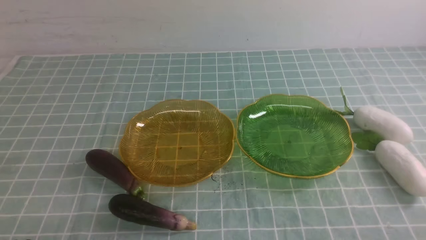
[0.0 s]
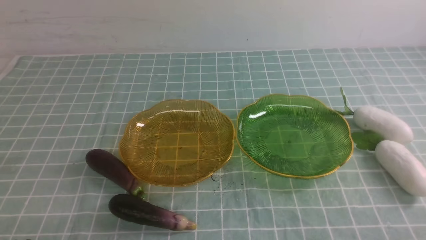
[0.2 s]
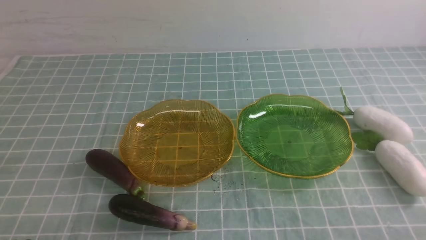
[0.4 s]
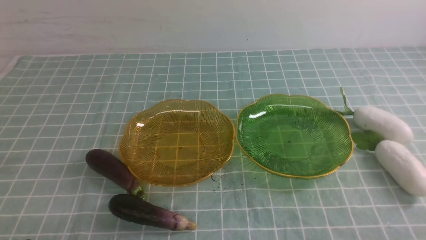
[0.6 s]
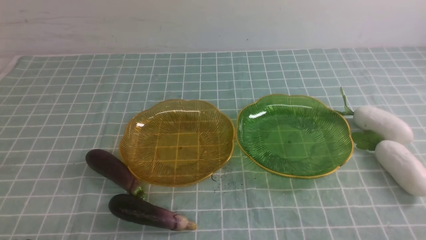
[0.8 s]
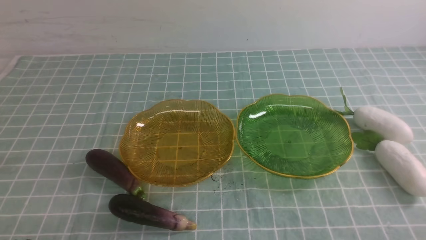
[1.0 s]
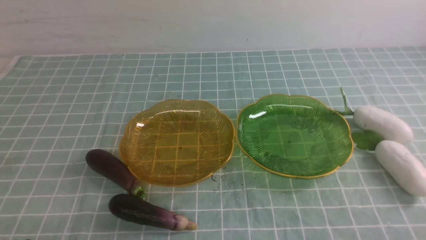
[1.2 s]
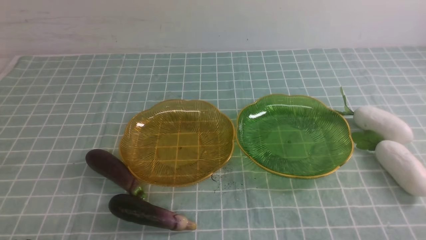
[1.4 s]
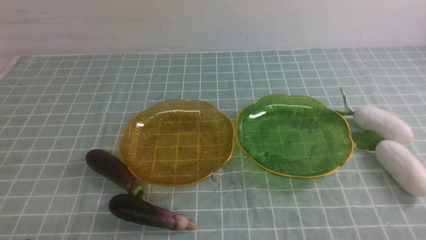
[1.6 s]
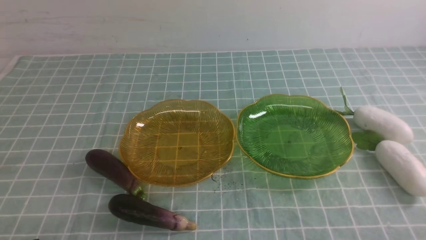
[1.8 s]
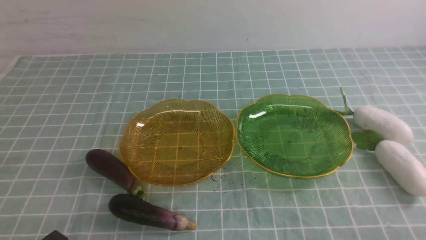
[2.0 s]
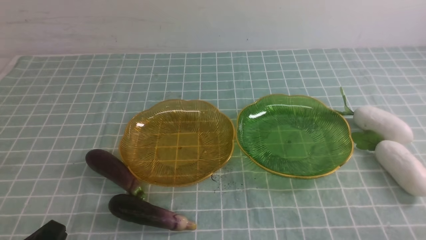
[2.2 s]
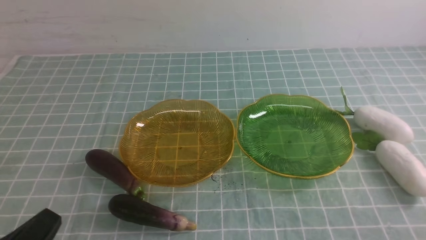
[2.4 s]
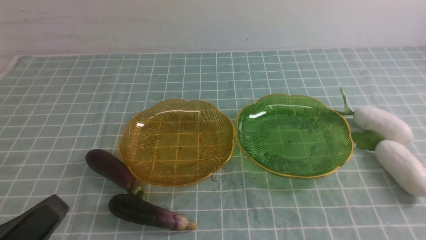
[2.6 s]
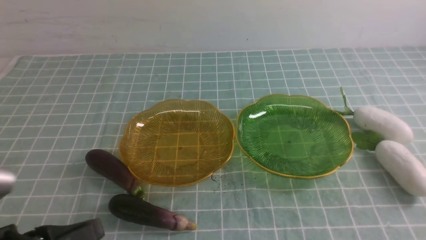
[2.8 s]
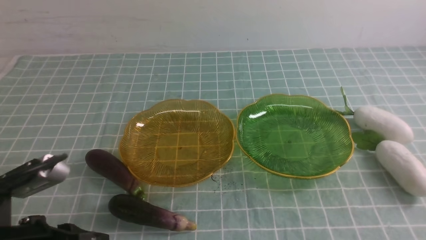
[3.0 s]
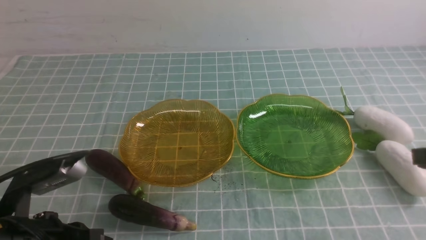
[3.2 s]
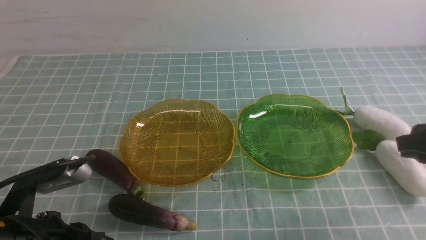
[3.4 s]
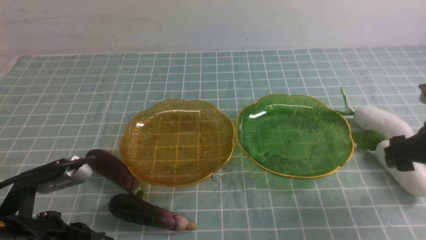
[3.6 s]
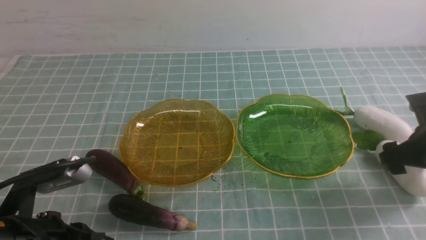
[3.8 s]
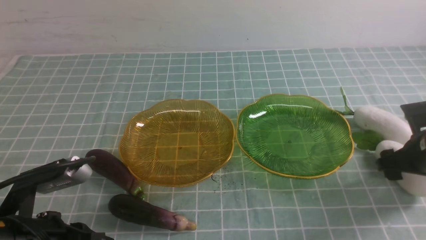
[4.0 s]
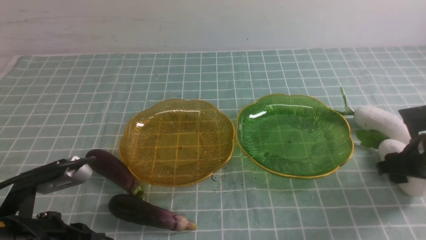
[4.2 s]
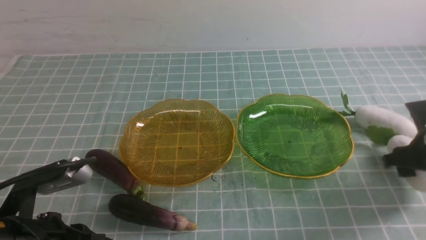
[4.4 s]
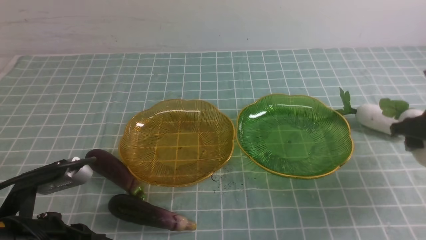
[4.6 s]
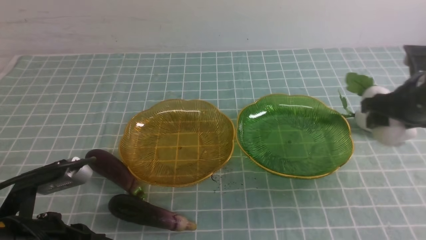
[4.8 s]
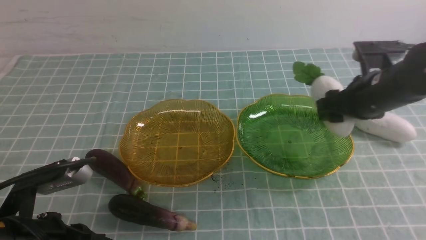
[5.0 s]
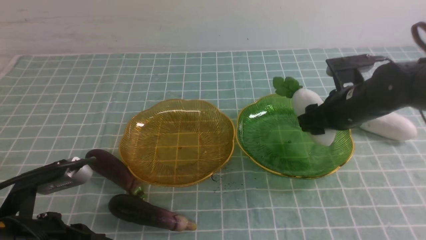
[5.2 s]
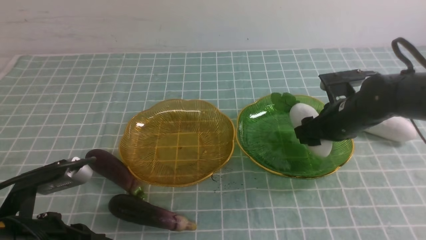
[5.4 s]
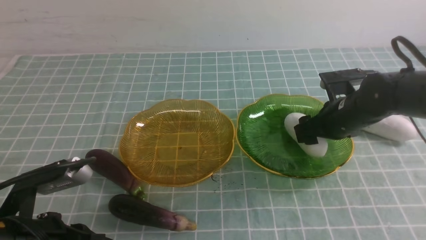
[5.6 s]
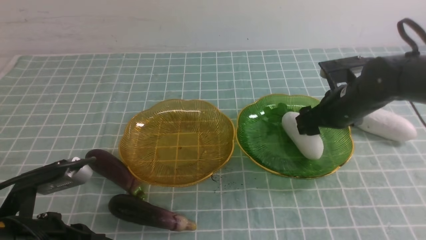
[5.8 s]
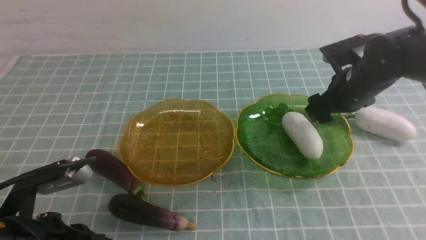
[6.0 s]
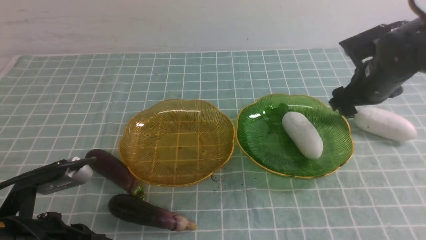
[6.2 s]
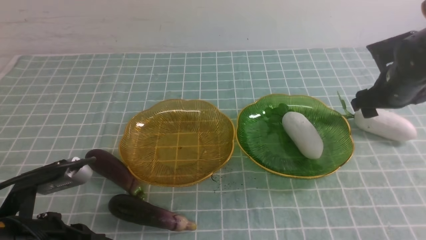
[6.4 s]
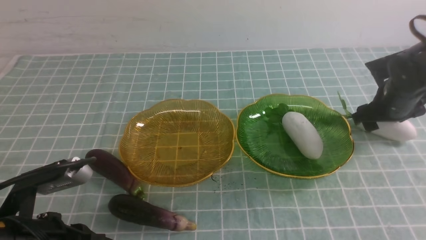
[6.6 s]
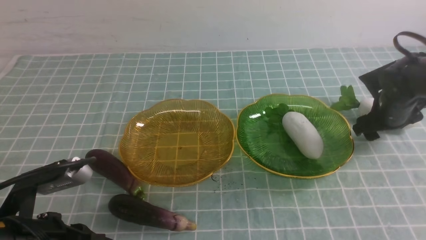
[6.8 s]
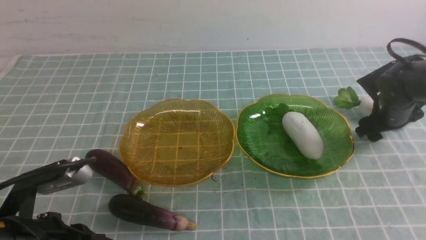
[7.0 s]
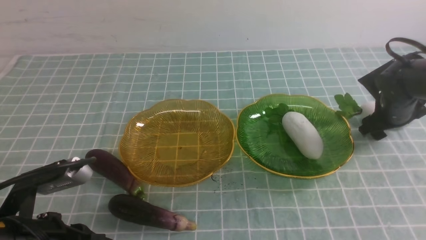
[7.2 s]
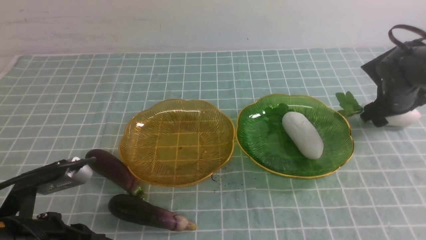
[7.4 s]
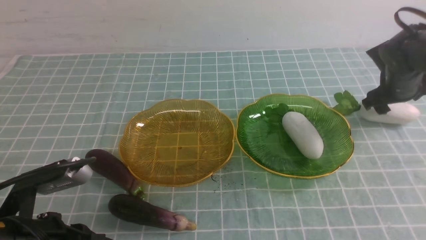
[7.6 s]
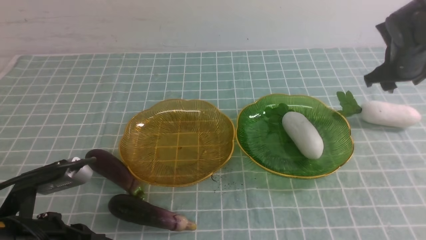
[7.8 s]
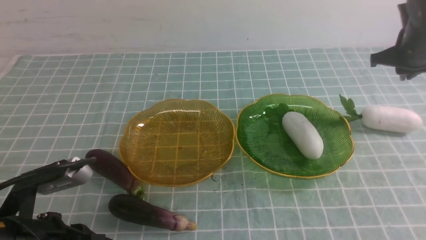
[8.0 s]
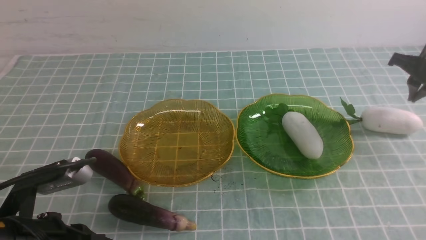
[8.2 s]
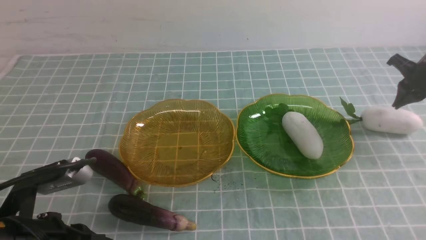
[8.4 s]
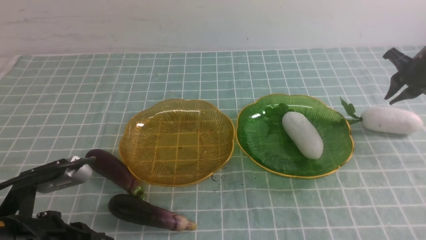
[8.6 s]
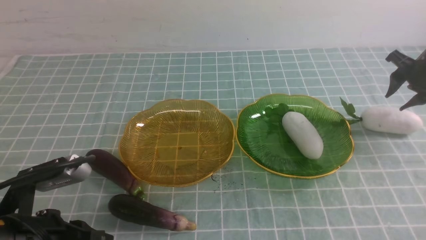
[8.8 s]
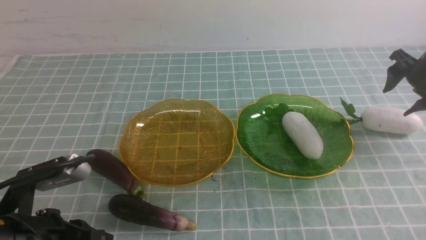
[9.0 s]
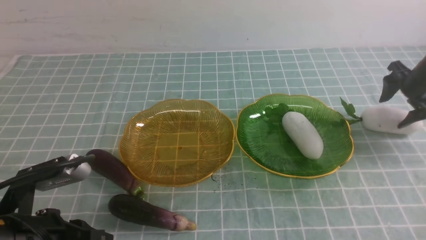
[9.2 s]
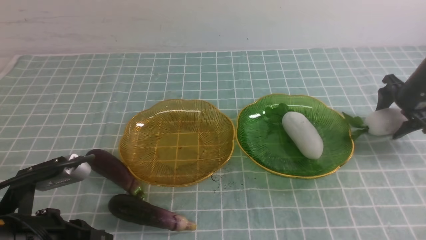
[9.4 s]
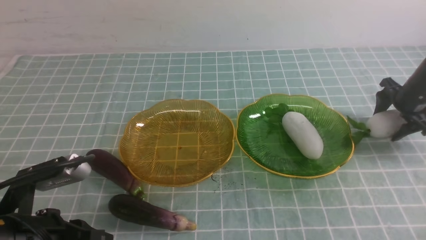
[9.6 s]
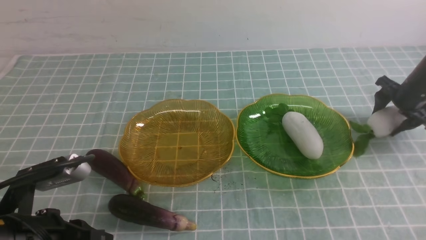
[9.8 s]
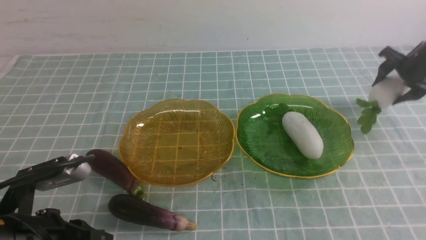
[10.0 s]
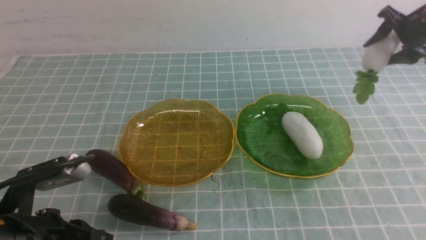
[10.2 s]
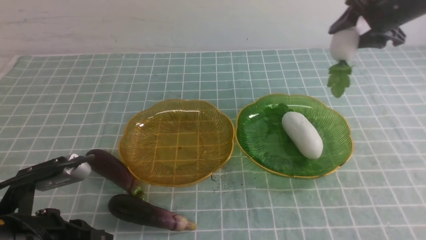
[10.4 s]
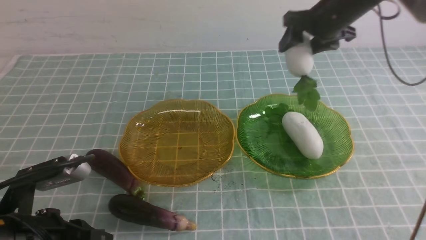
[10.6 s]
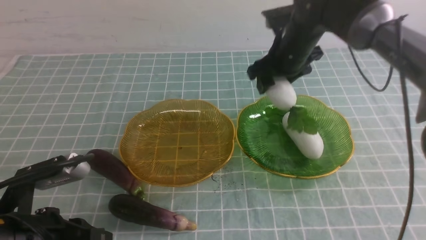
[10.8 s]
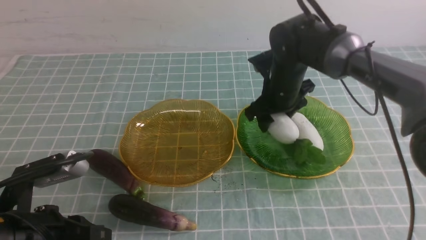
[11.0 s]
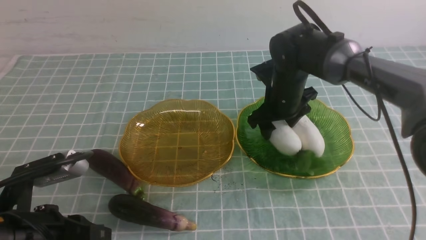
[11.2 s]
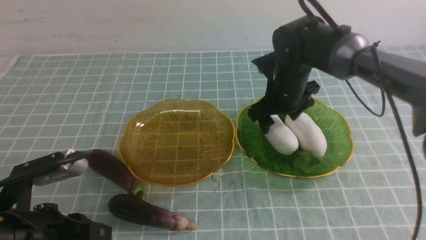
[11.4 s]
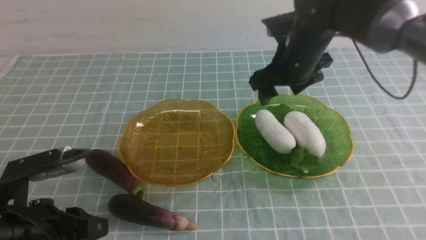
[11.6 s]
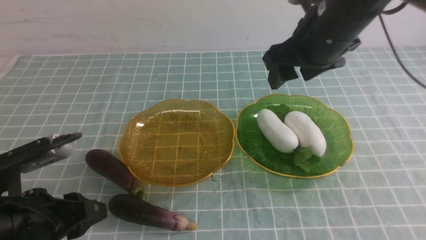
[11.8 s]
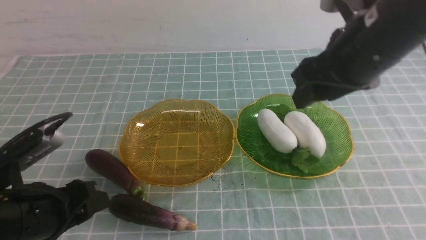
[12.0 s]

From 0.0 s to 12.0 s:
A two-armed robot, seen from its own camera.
Step, from 0.0 s to 5.8 s: use the right arm to grab a radish and put it into the right plate.
Step, from 6.0 s to 11.4 s: use the right arm to grab a radish and put it into the right plate.
From 1.6 s to 3.0 s: The left gripper goes roughly 10 cm upward and forward.
From 3.0 s to 4.4 s: The right gripper goes roughly 20 cm forward and downward, and opens.
From 4.4 s to 6.0 s: The right gripper goes approximately 15 cm to the left and forward.
From 6.0 s to 7.6 s: The right gripper is displaced to the right and forward by some 10 cm.
From 7.6 s to 9.0 s: The right gripper goes roughly 5 cm to the right, and closes, then reopens.
From 9.0 s to 10.4 s: The right gripper shifts approximately 15 cm to the left and upward.
From 10.4 s to 12.0 s: The right gripper goes roughly 25 cm backward and to the left, while the left gripper opens up.

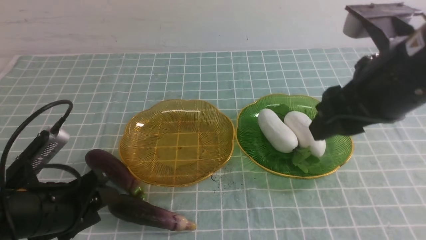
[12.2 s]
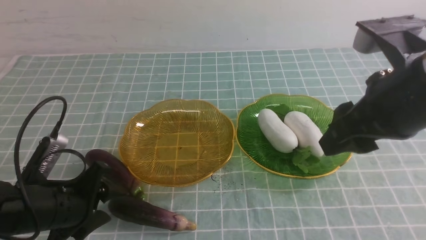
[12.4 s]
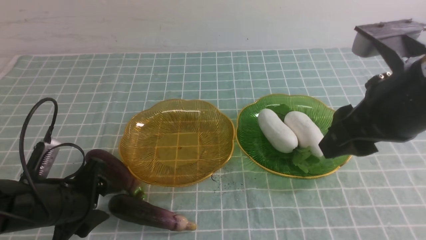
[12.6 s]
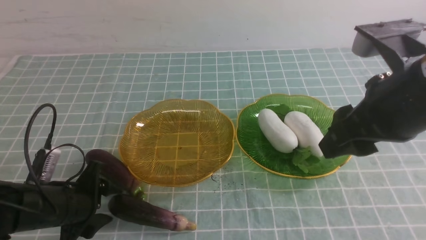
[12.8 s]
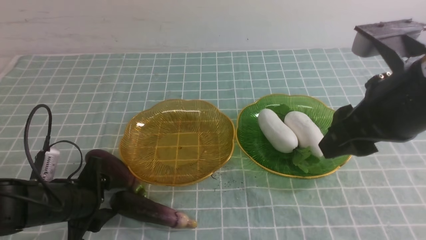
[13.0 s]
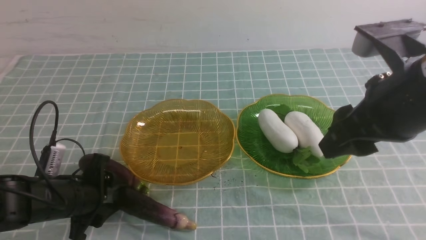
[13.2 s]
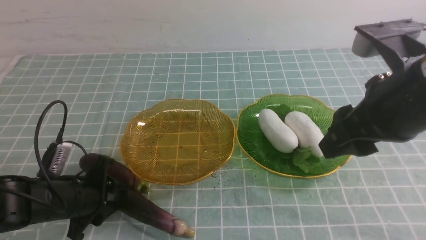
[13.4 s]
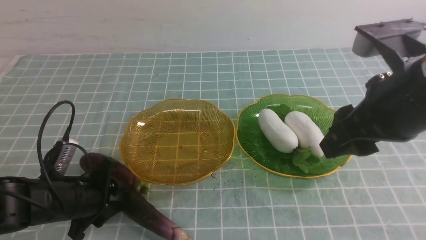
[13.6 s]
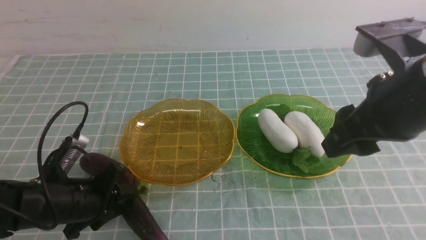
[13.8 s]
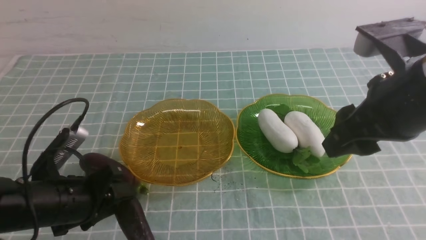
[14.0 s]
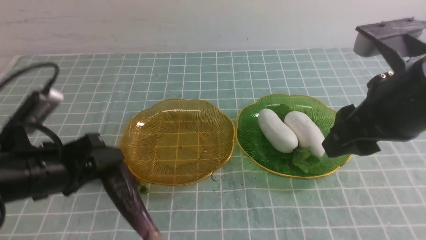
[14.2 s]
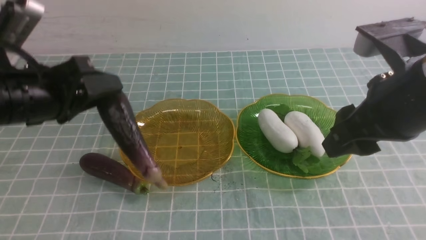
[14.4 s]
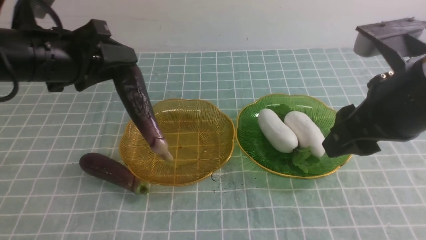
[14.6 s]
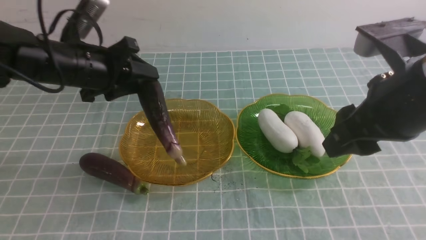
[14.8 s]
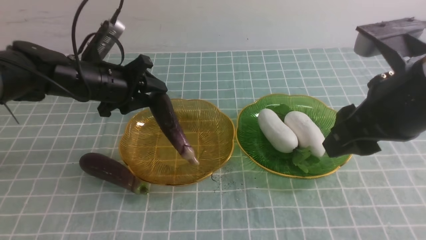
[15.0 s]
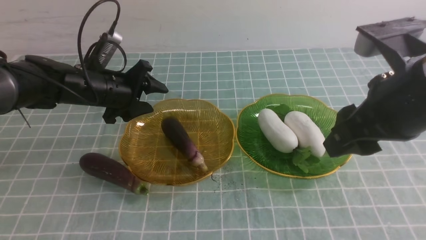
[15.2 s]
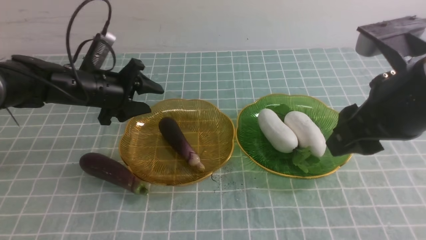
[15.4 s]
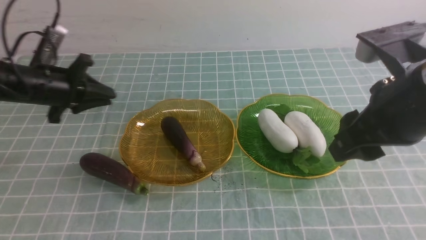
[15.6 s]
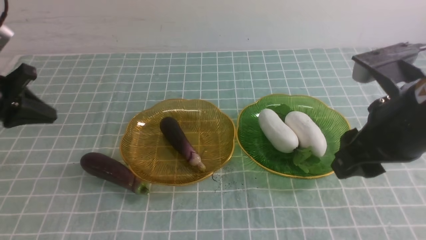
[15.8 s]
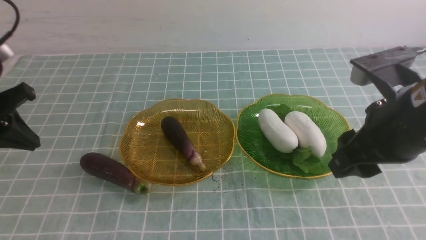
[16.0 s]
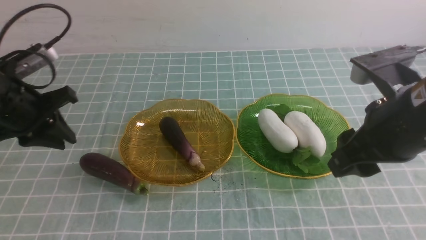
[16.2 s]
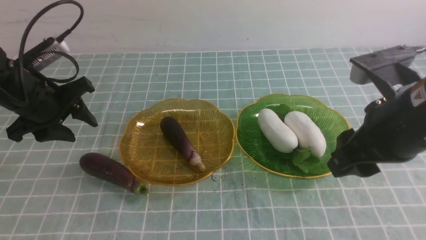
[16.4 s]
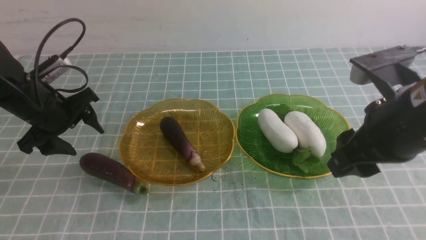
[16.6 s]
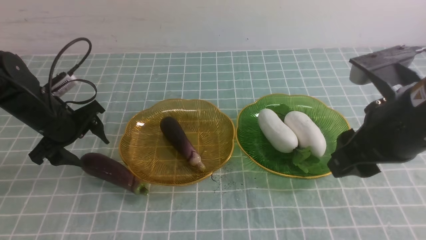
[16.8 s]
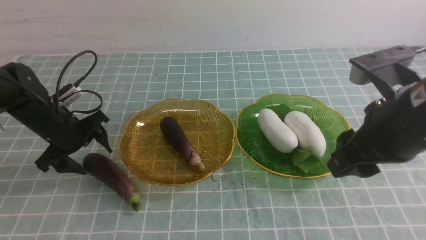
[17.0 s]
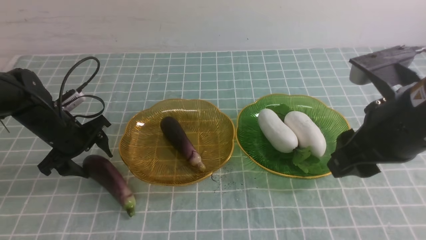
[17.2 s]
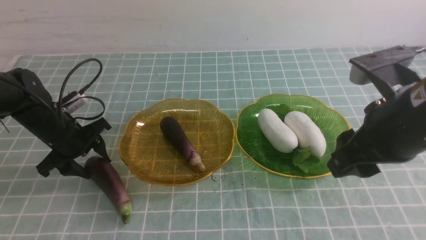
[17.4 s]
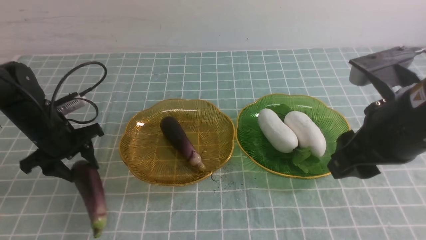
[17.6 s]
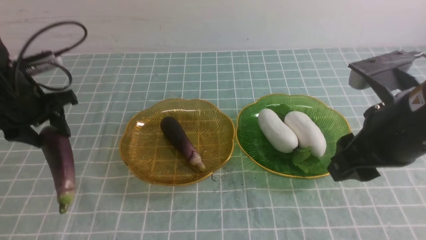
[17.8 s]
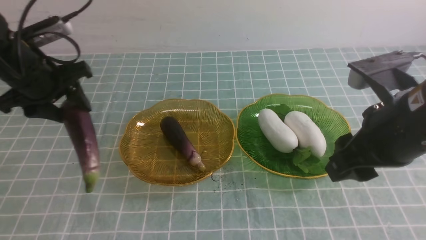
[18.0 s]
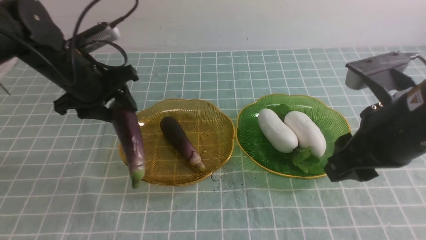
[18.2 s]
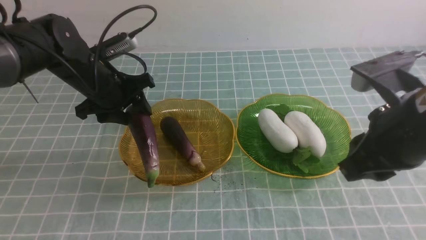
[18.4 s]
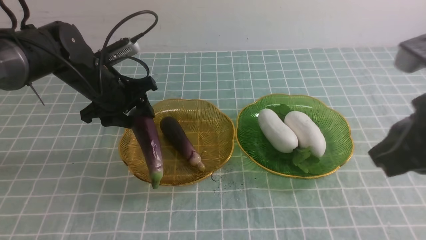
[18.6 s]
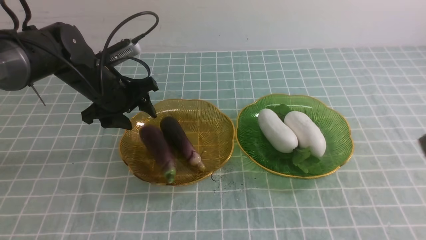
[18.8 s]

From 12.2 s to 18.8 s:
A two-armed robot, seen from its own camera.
From 13.8 s to 15.4 s: The left gripper moves forward, about 15 cm.
From 15.4 s to 17.2 s: The left gripper heads downward, covering some 5 cm, and closes and opens again.
From 17.2 s to 18.8 s: The left gripper moves to the right and upward, approximately 10 cm. Meanwhile the right gripper travels backward, upward and to the right by approximately 15 cm, and closes its fingers.
